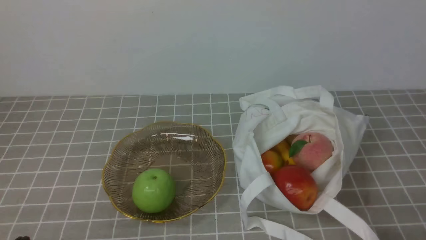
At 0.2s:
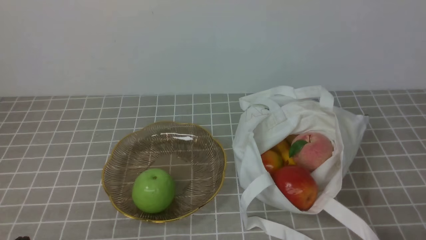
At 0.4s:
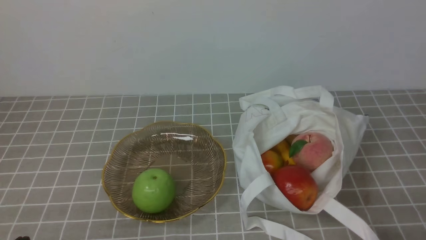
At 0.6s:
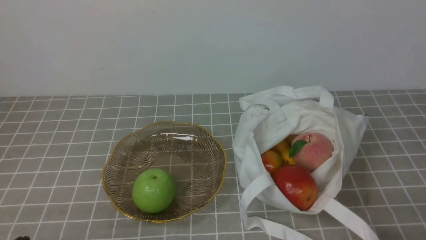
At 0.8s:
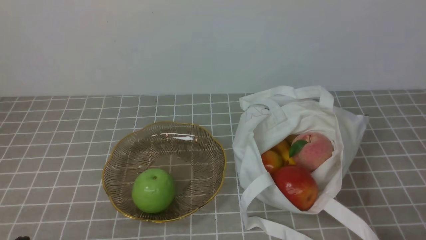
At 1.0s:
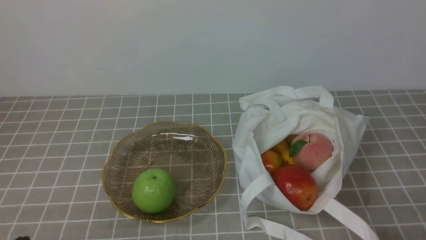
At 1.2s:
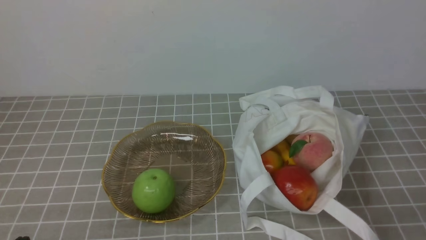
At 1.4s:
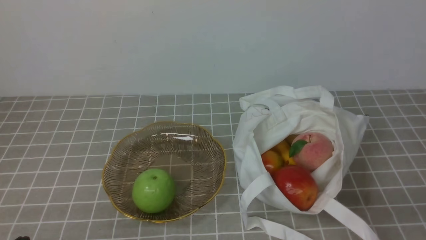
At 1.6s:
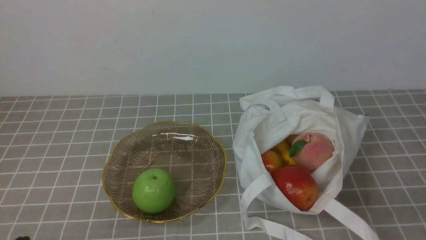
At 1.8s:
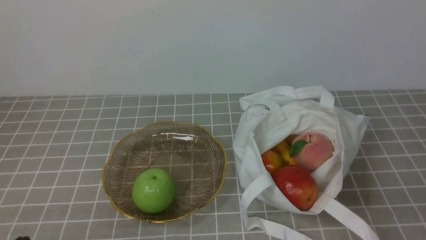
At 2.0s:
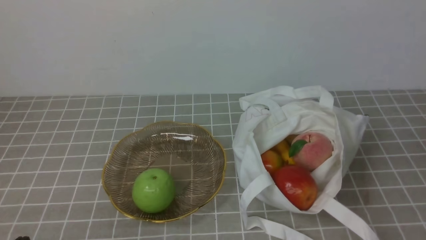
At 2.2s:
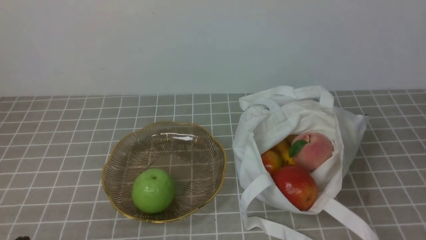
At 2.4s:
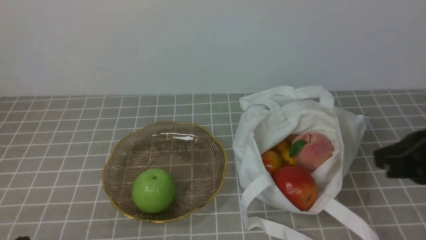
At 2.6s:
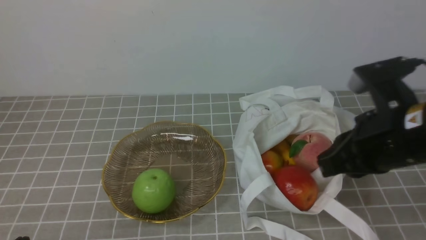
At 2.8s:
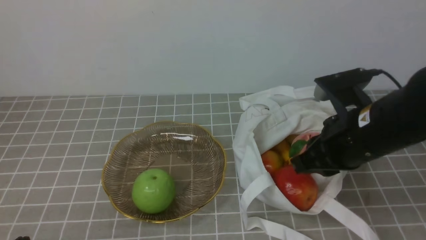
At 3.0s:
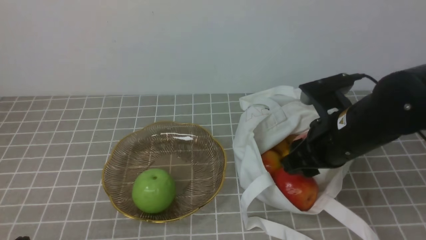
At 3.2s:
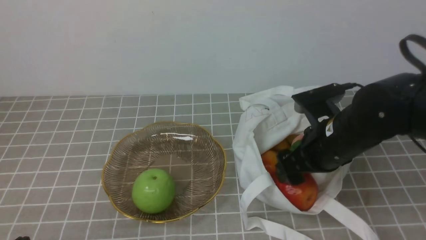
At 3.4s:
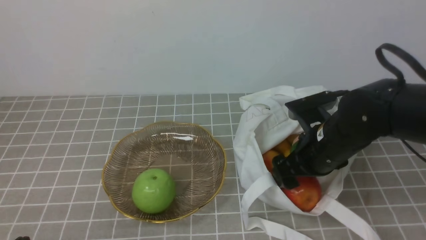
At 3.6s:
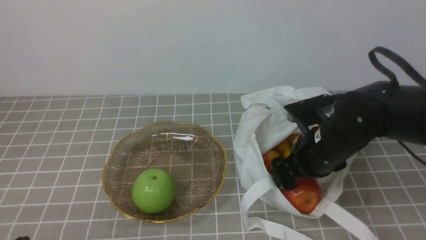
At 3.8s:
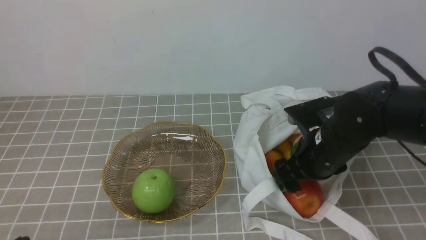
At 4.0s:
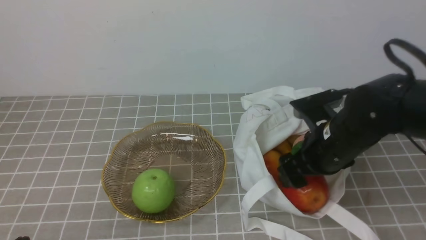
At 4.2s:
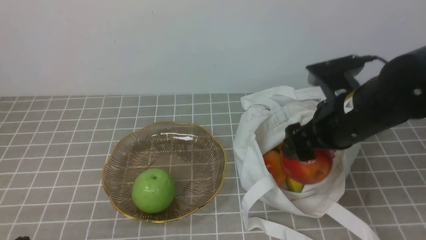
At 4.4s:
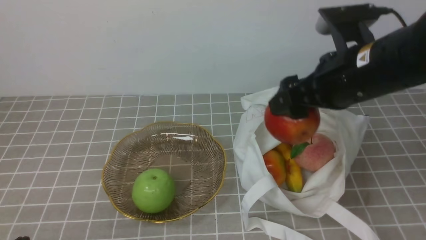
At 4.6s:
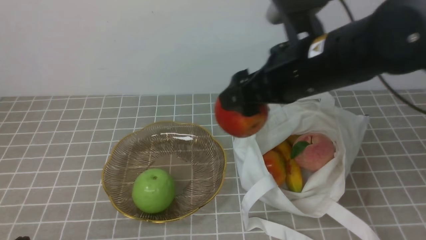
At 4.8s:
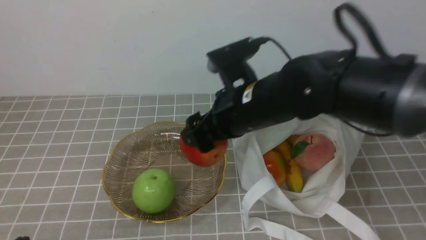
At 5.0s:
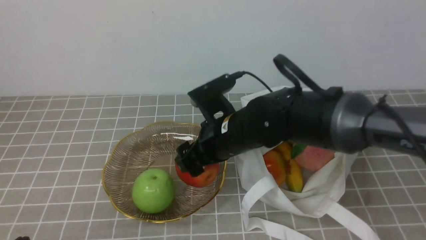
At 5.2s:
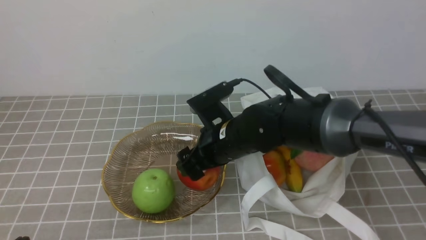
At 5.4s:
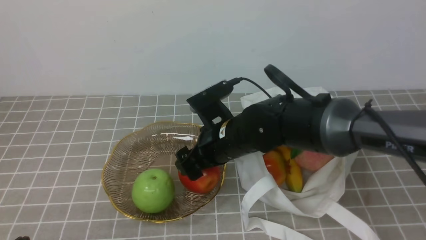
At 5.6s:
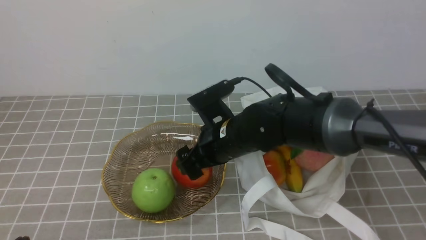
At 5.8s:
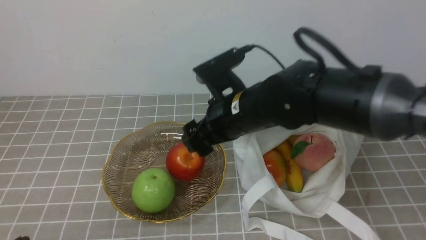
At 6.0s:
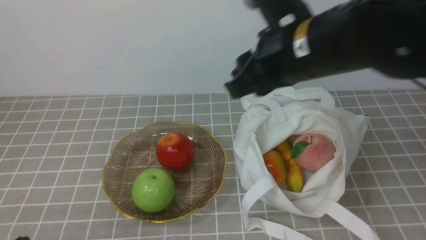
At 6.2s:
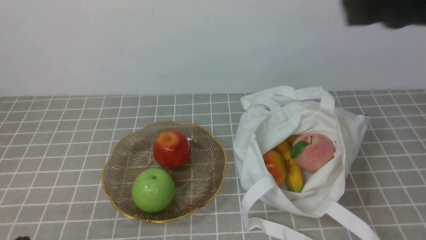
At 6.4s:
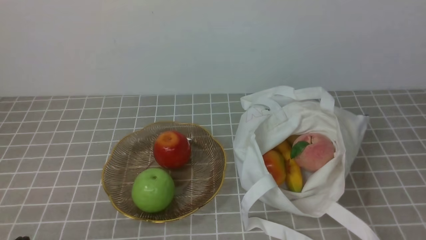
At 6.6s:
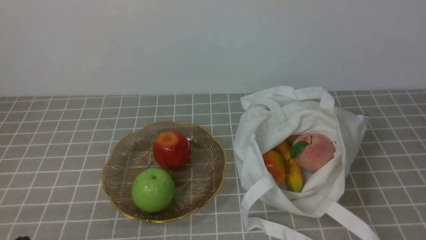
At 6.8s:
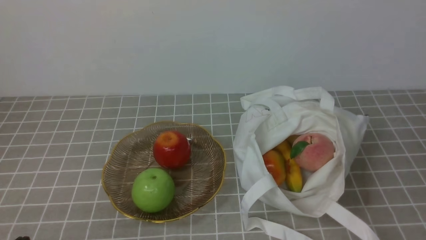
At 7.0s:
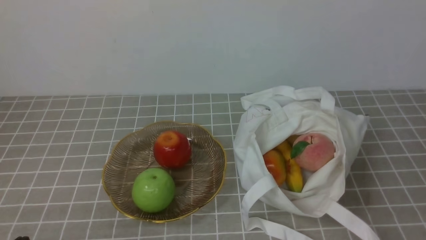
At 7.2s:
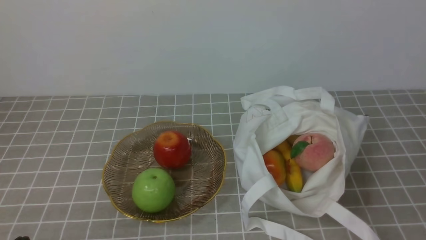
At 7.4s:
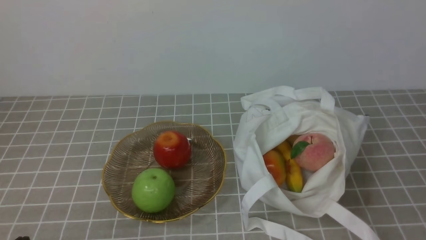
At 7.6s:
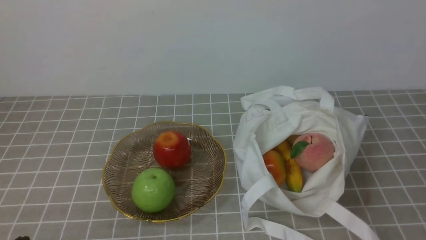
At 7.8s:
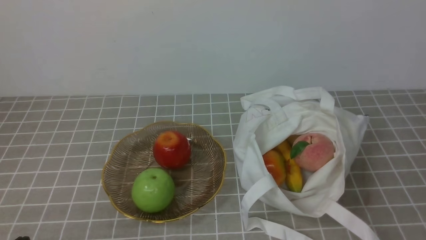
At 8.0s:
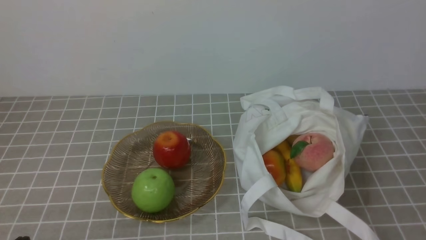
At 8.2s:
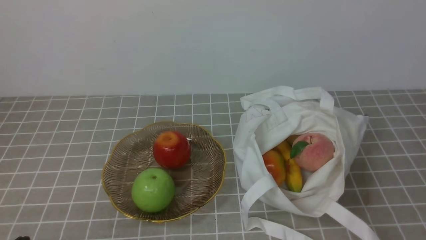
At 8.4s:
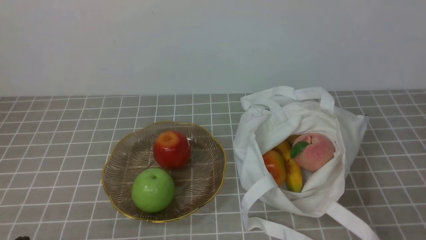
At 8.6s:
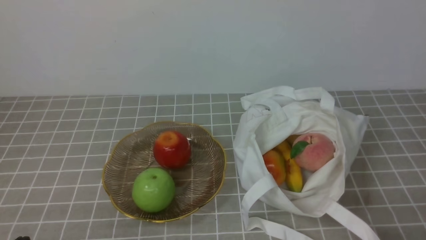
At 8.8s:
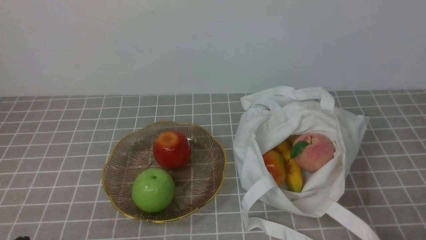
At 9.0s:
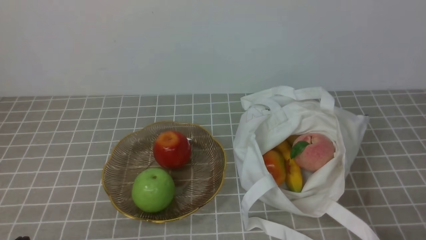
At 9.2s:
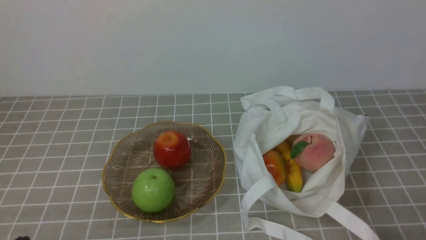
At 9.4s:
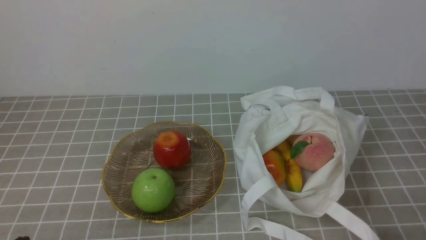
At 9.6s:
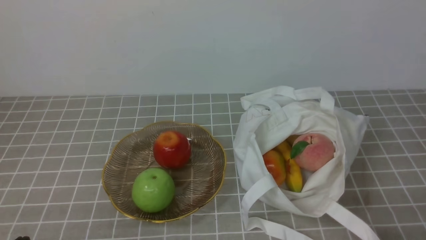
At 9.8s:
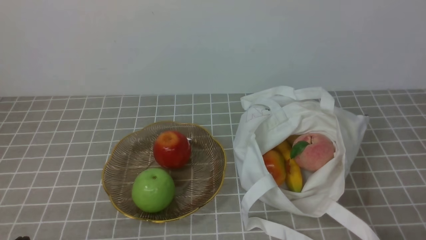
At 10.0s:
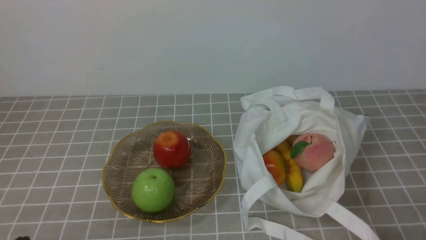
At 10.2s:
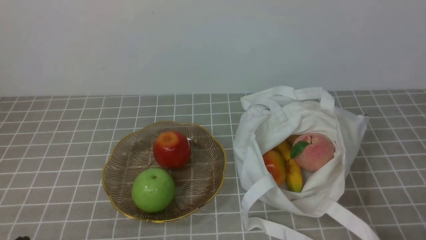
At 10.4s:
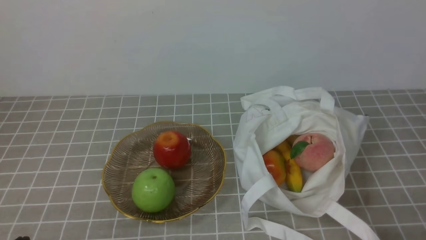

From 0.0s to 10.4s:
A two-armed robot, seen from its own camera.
Step, from 0.0s to 4.0s: use the right arm to grab an apple from the bag.
Step, from 4.2s to 5.6s: use the right arm to put the apple into the empty plate on the left.
From 1.4s to 3.0s: The right gripper heads forward and to the left, covering some 25 cm, and opens.
From 3.0s to 4.4s: The right gripper heads upward, covering approximately 5 cm.
From 4.4s to 6.0s: The right gripper travels upward by roughly 5 cm, and closes.
From 6.0s to 7.4s: The right gripper goes approximately 30 cm backward, to the right and downward, and closes.
From 9.0s to 10.4s: The two grippers keep their place.
